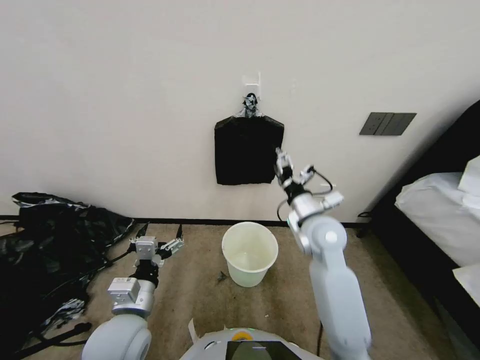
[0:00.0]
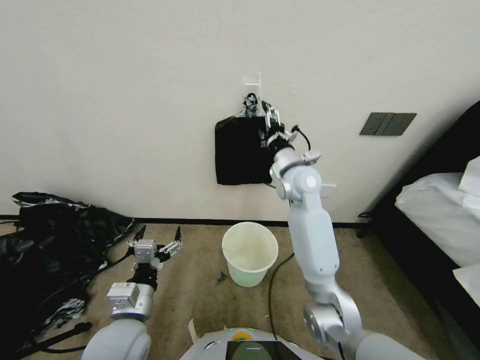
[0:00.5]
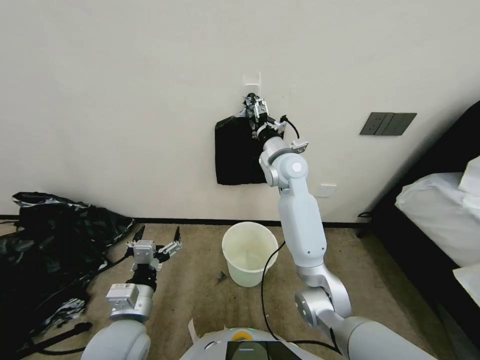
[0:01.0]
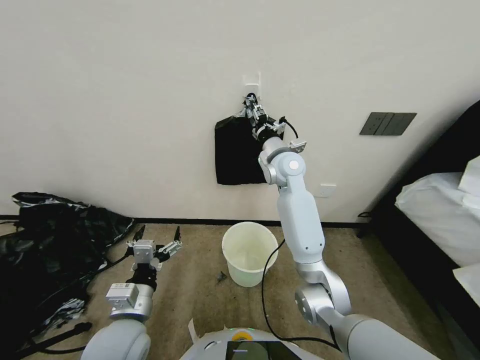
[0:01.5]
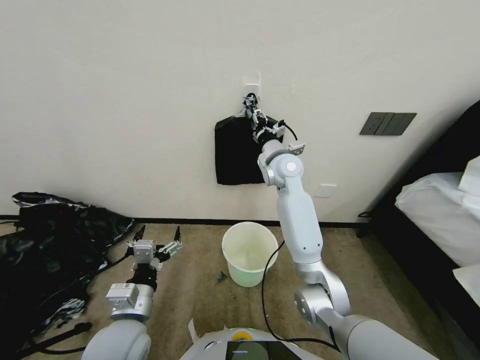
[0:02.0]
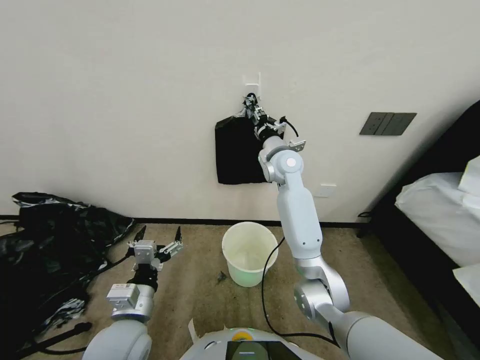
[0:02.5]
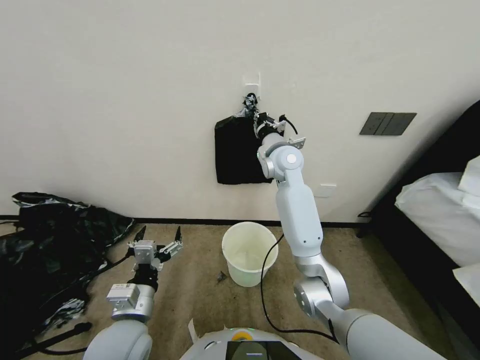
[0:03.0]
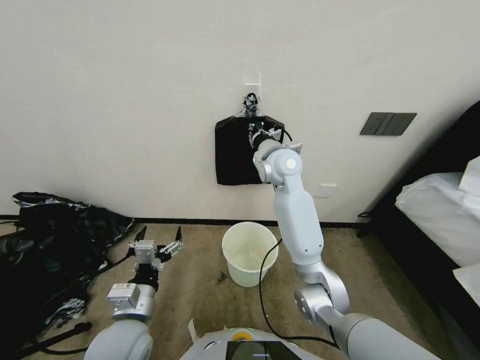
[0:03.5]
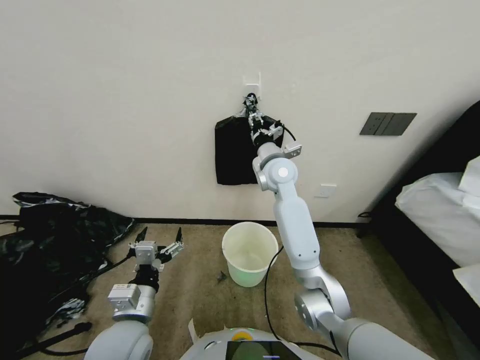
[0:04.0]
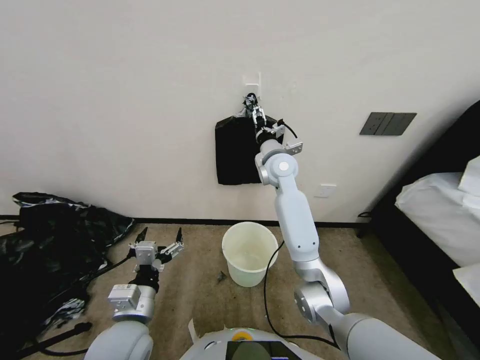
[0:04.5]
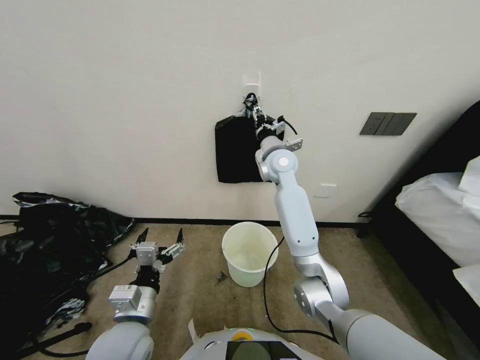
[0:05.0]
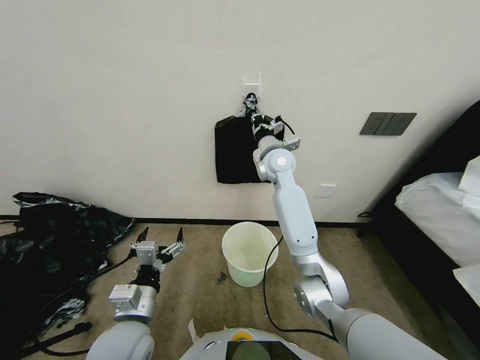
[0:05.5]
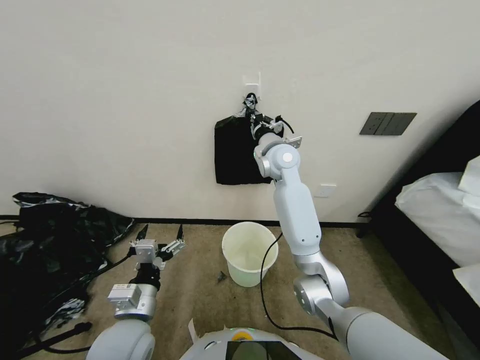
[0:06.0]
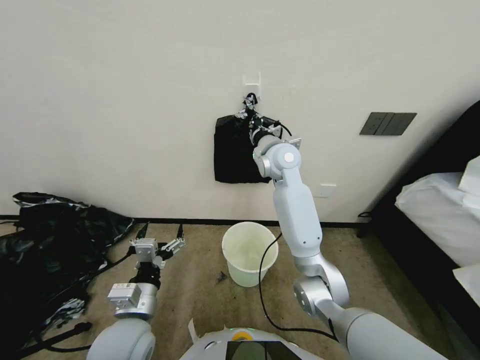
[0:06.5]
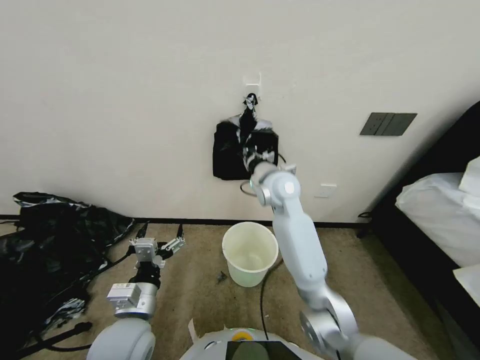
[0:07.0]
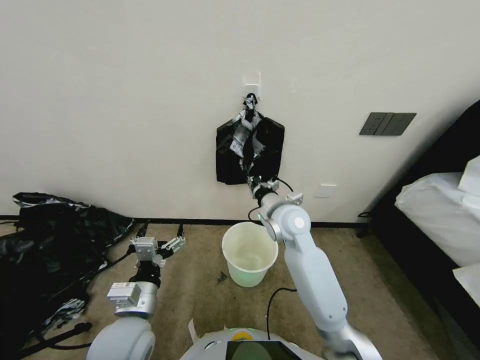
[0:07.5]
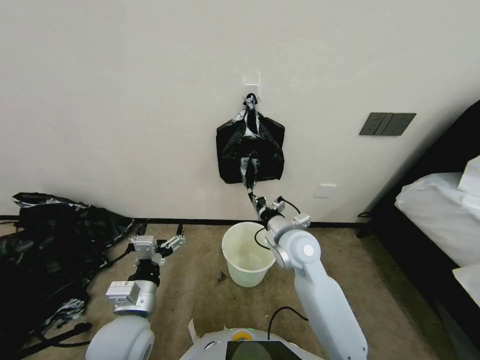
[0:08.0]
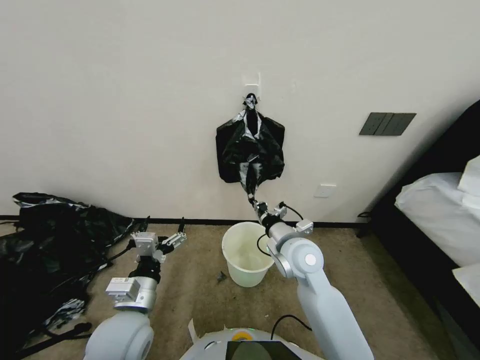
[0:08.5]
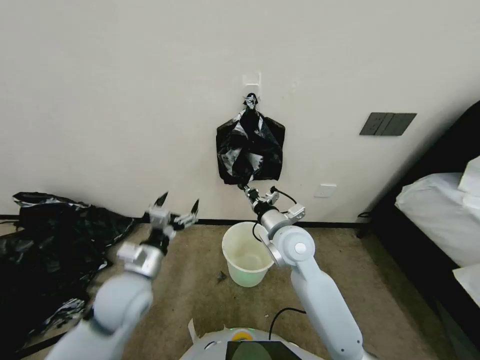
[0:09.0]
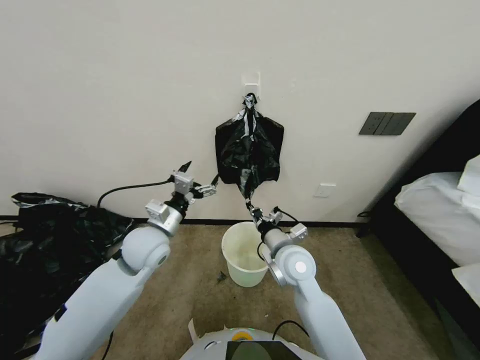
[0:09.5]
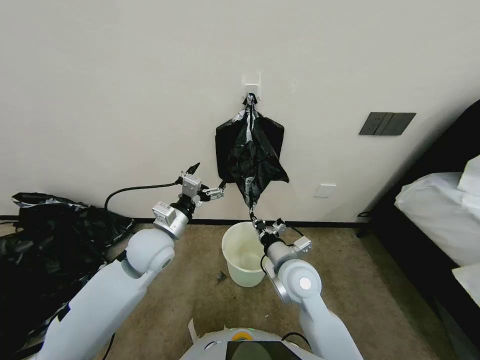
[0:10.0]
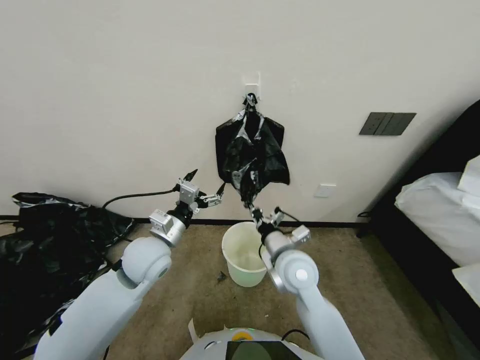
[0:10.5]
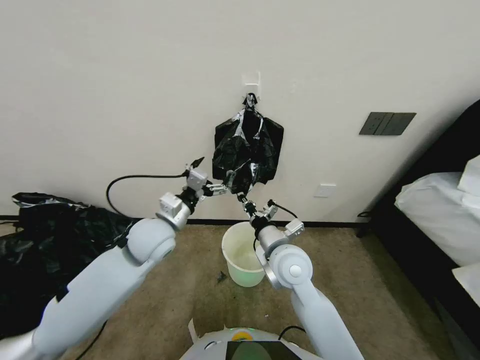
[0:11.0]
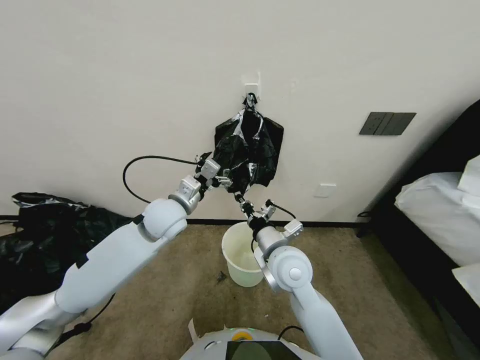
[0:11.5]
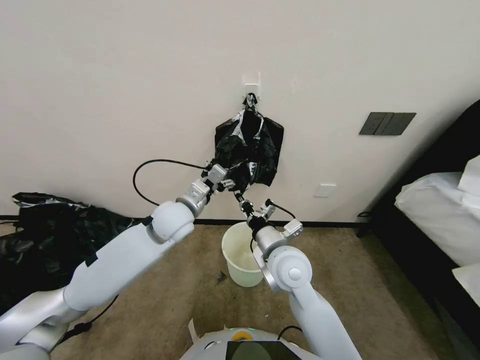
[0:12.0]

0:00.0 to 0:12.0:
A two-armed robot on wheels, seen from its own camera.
Task of the whole recording: Place a trash bag onto the trash bin.
0:00.0 to 0:02.0: The right gripper is displaced forward, upward and to the left by about 20 cm, and closes up.
0:02.0 to 0:04.0: There are only small adjustments of the grippers.
0:04.0 to 0:06.0: The right gripper opens, then closes again.
0:06.0 to 0:08.0: The right gripper travels backward and downward by approximately 20 cm.
0:08.0 to 0:10.0: The left gripper is displaced forward by about 15 cm. Meanwhile the right gripper shifts about 5 cm backward.
0:10.0 to 0:12.0: The right gripper ends up some 5 cm from where it was. Meanwhile the left gripper is displaced forward by some 5 cm.

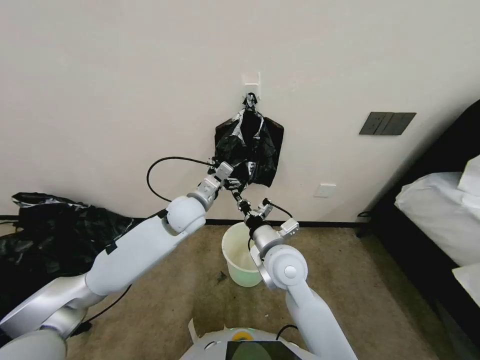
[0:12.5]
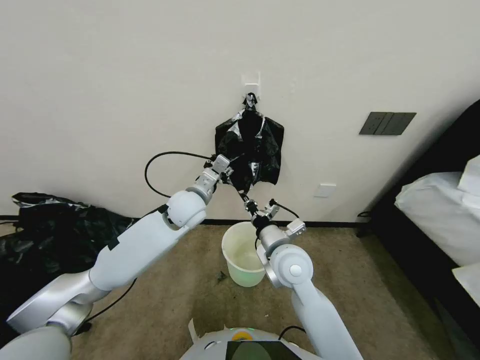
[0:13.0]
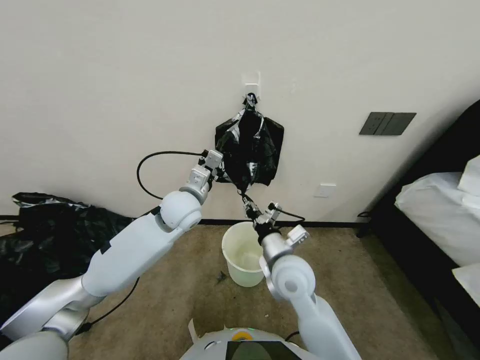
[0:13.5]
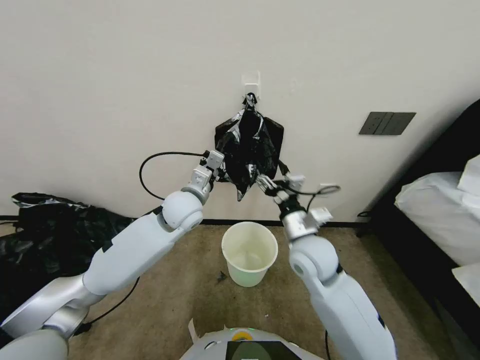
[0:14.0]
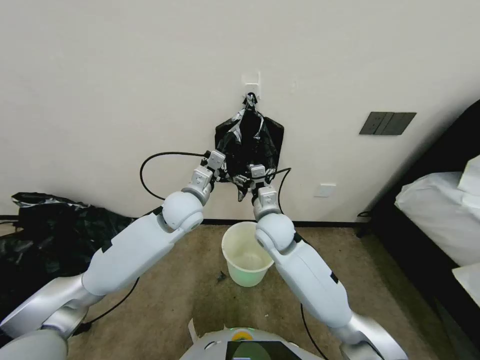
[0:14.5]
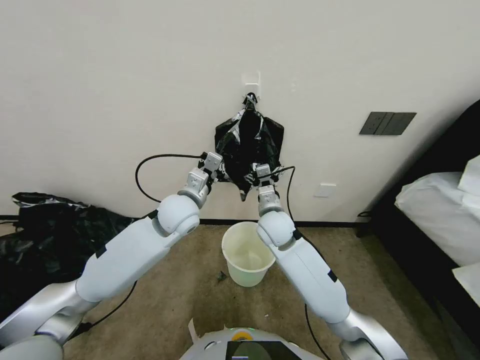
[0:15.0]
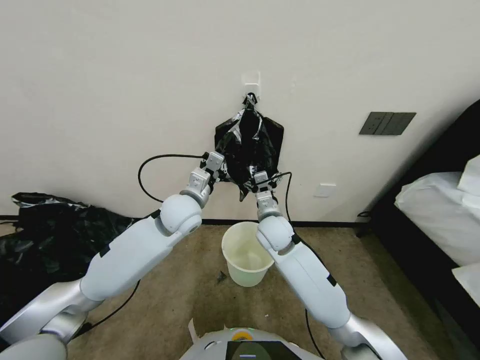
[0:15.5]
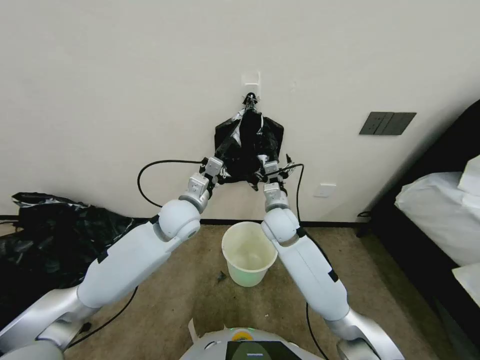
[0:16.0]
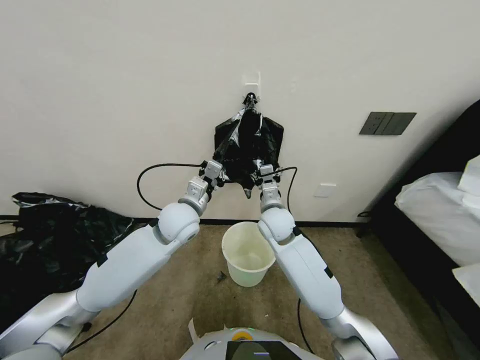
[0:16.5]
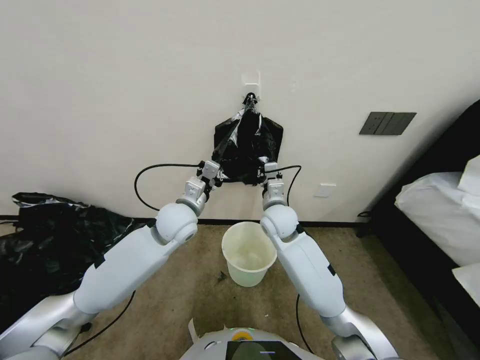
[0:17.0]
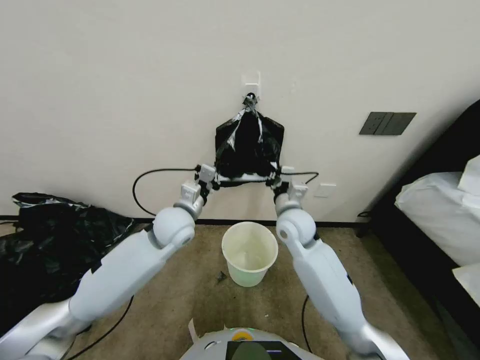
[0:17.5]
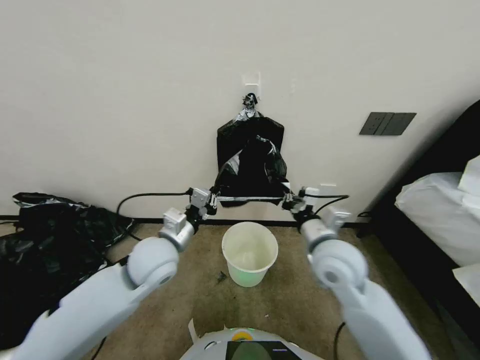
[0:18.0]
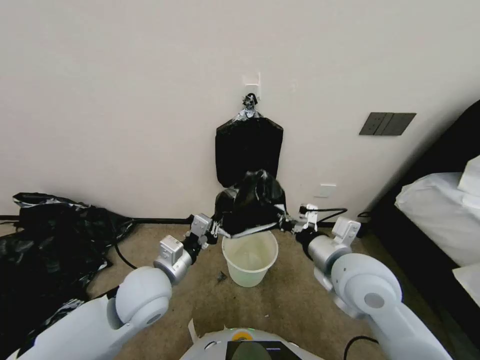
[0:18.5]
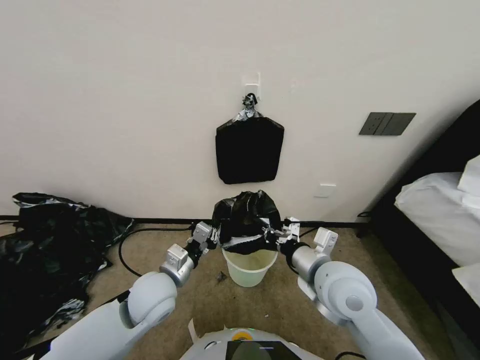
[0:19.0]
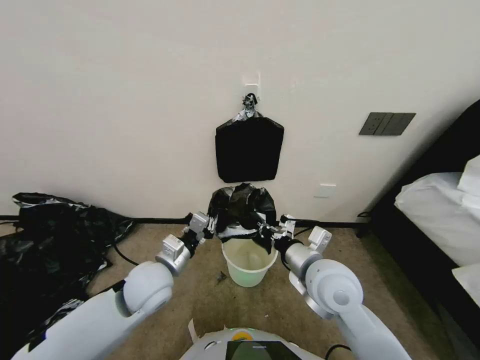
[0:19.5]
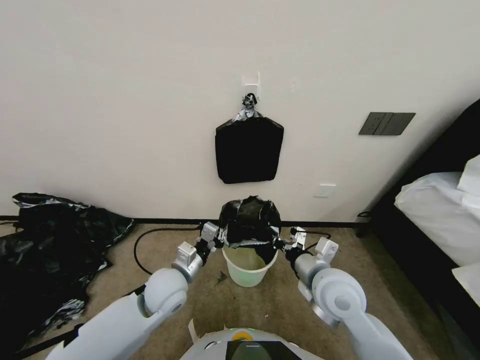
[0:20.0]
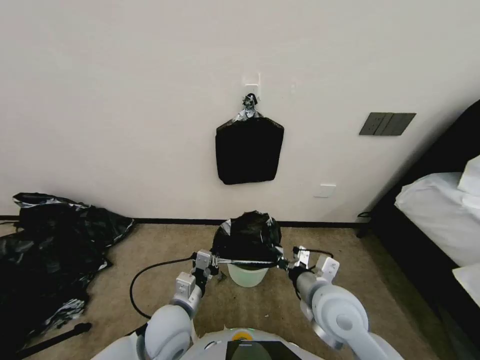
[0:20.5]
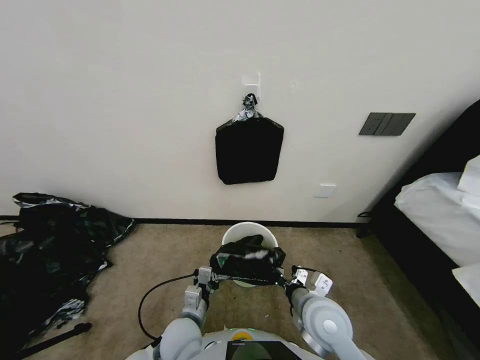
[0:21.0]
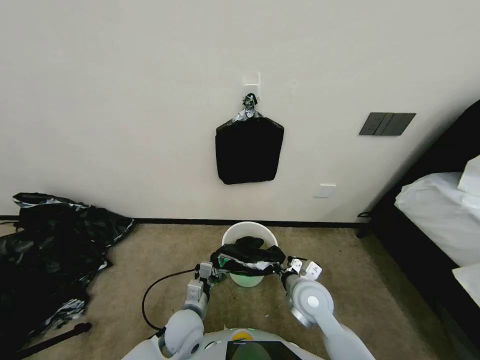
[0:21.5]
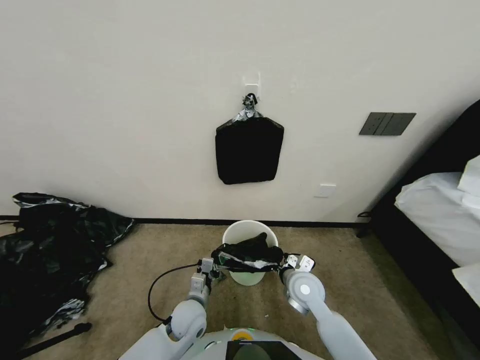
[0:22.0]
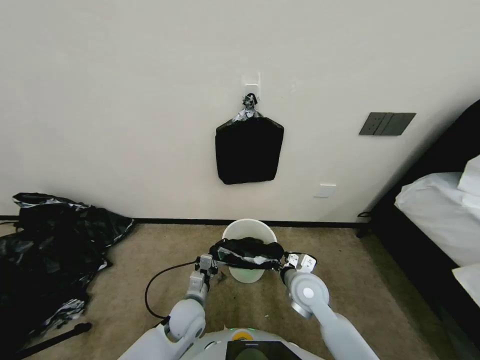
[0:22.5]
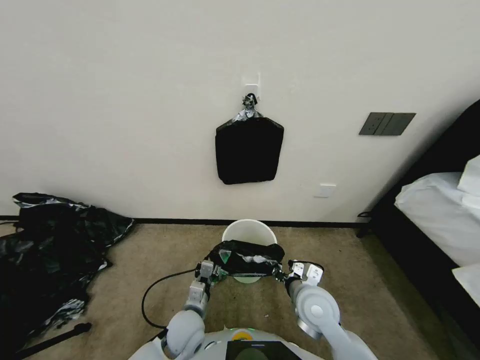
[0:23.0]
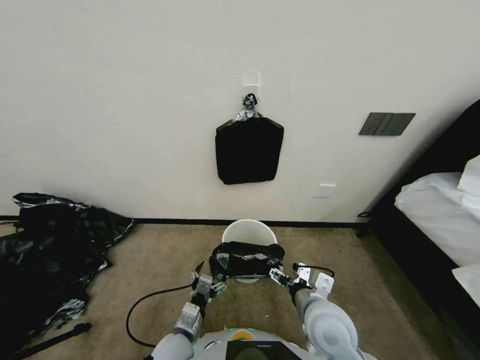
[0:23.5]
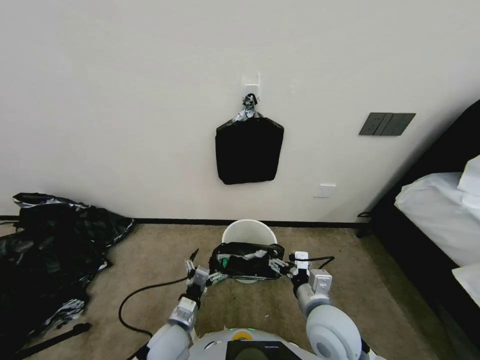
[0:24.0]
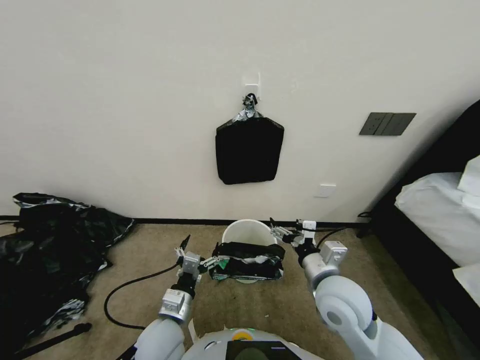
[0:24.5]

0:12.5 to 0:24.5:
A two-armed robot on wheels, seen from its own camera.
Task of the whole recording: Place a trash bag onto the trash bin.
0:12.5 to 0:14.5: The left gripper closes its fingers. The right gripper shifts about 5 cm forward, and opens.
0:14.5 to 0:16.5: The right gripper goes about 5 cm forward.
0:16.5 to 0:18.5: The left gripper heads backward, covering approximately 15 cm. Meanwhile the right gripper shifts roughly 20 cm backward, to the right and upward, and closes up.
0:18.5 to 0:20.5: Both grippers travel together downward, roughly 10 cm.
0:20.5 to 0:22.5: The right gripper moves downward and forward, some 10 cm; the left gripper heads downward, covering approximately 10 cm.
0:22.5 to 0:24.5: The grippers both shift upward and backward by about 10 cm. The right gripper opens. The left gripper opens.

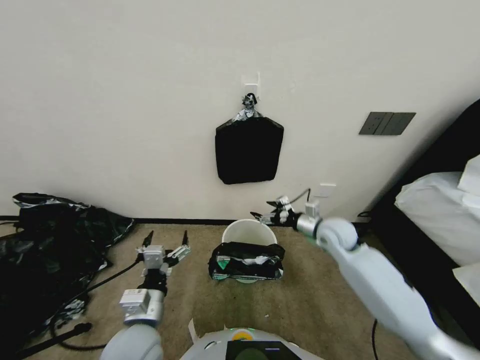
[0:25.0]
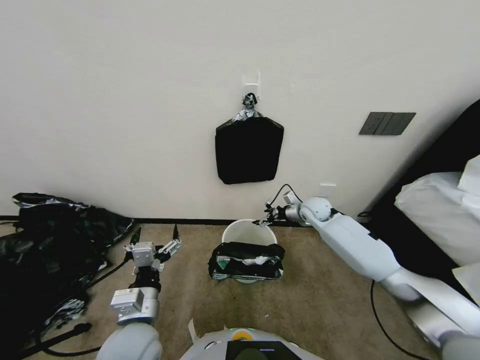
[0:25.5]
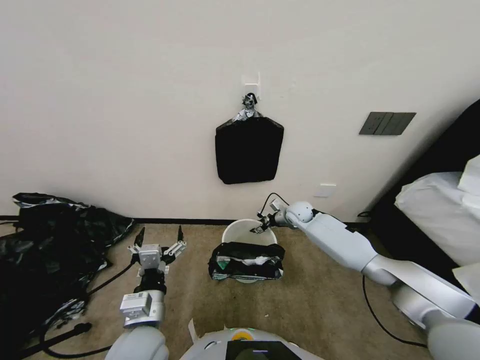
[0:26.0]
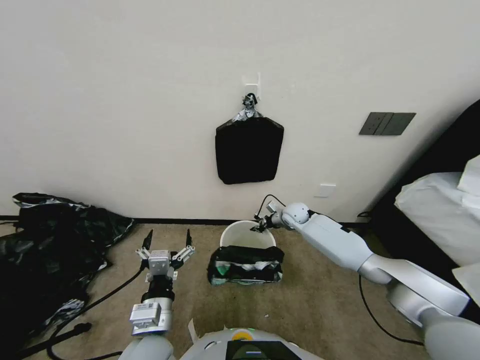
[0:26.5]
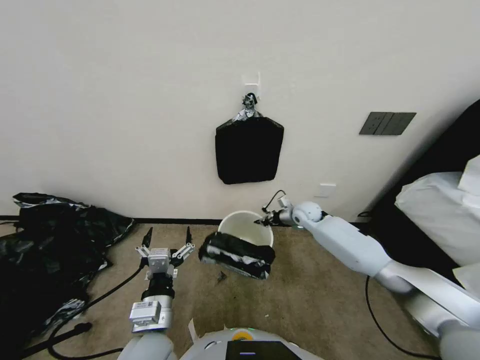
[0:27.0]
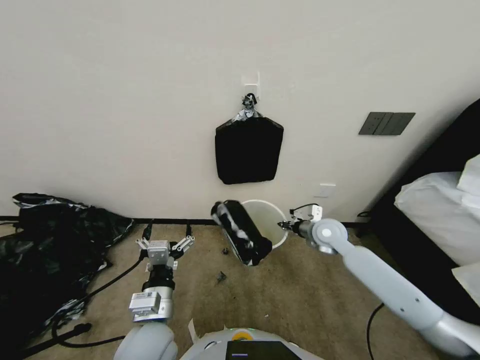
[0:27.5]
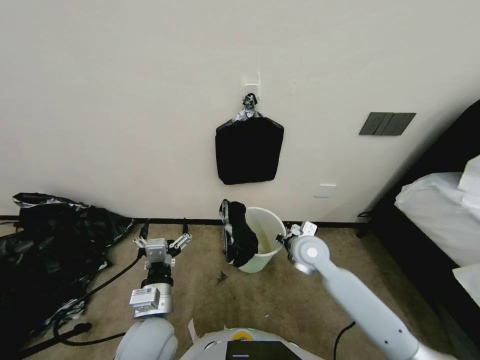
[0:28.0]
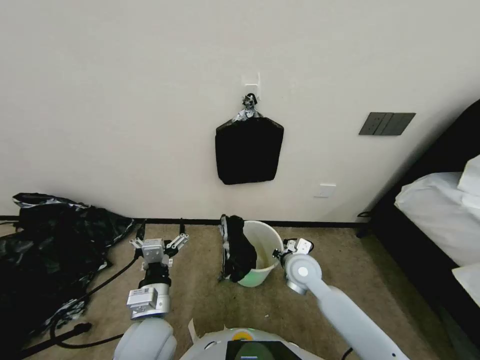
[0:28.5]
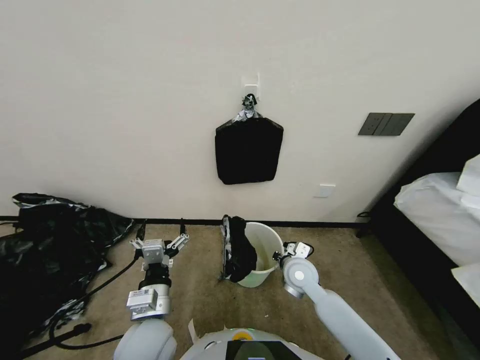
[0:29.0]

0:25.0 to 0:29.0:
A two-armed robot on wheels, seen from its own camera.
Task of the whole recording: Place a trash bag onto the trash bin.
0:25.0 to 0:27.0: The right gripper moves forward, some 20 cm, and closes its fingers.
0:27.0 to 0:29.0: The right gripper goes some 20 cm backward.
